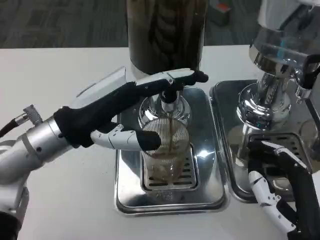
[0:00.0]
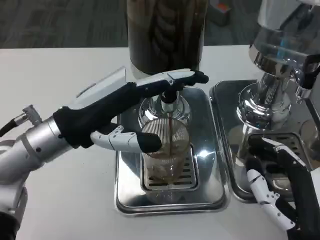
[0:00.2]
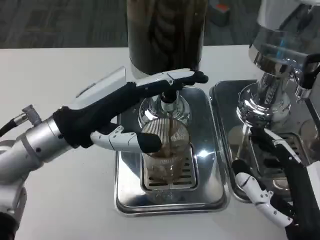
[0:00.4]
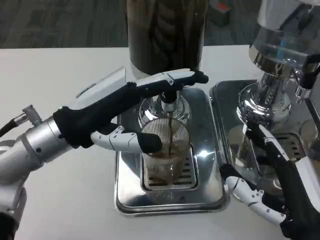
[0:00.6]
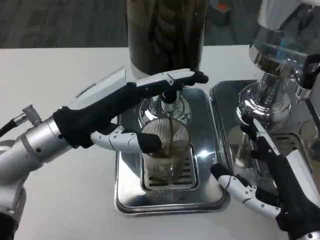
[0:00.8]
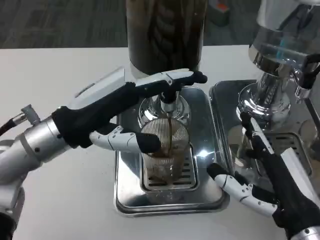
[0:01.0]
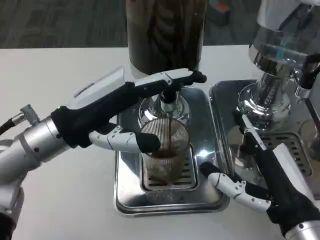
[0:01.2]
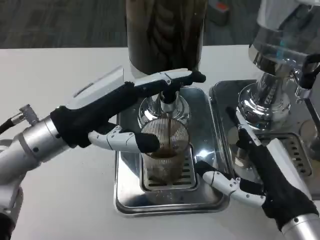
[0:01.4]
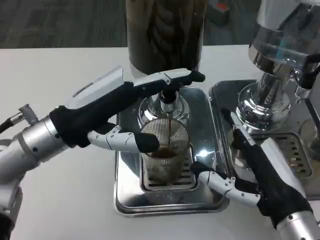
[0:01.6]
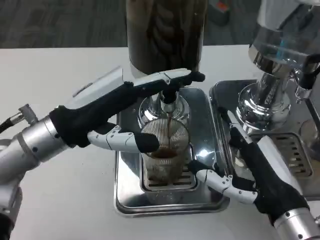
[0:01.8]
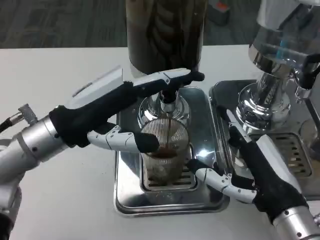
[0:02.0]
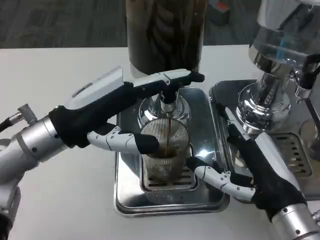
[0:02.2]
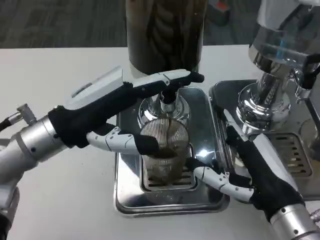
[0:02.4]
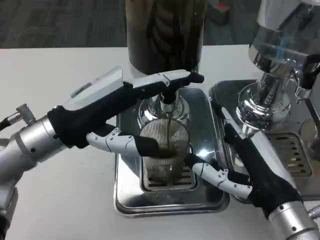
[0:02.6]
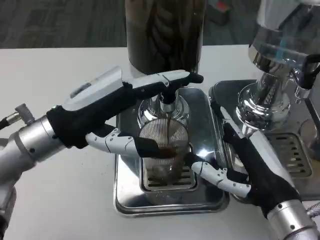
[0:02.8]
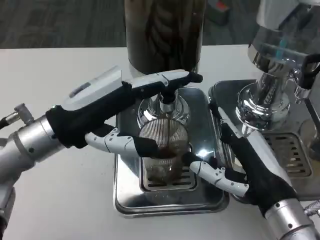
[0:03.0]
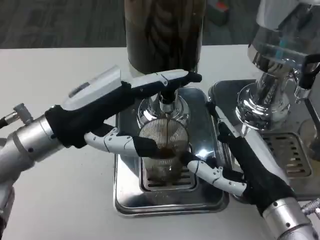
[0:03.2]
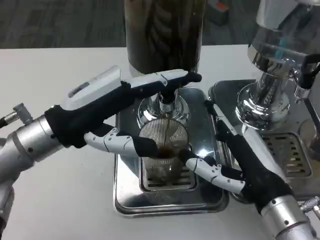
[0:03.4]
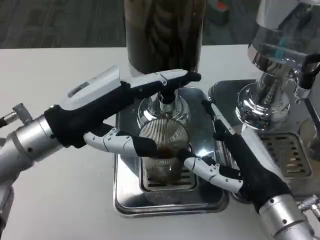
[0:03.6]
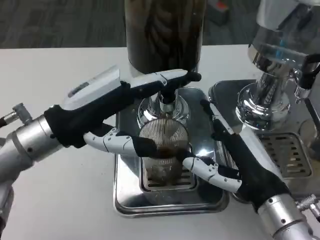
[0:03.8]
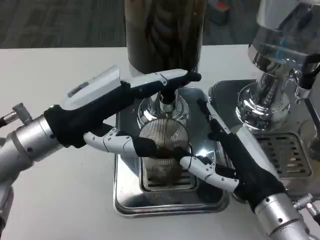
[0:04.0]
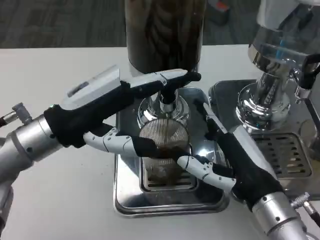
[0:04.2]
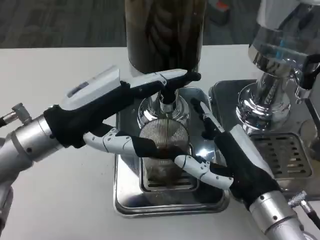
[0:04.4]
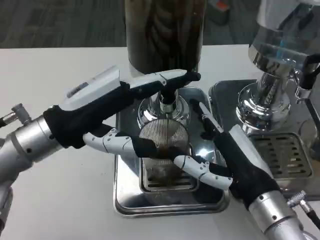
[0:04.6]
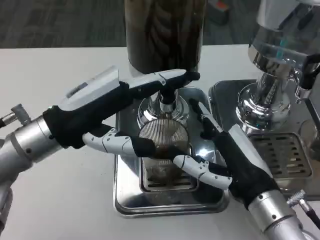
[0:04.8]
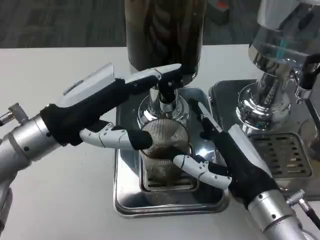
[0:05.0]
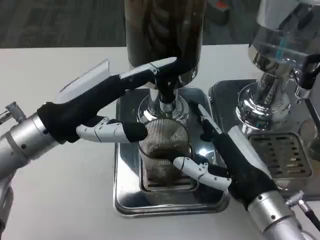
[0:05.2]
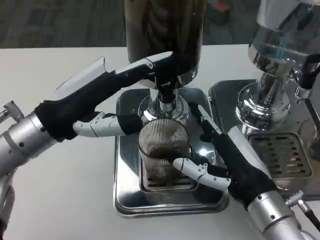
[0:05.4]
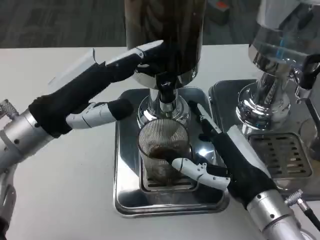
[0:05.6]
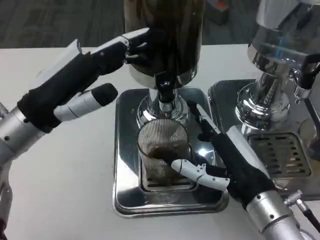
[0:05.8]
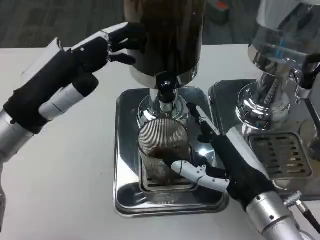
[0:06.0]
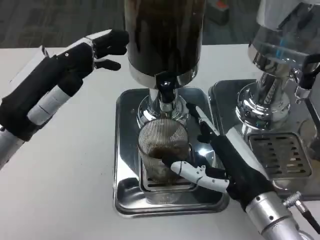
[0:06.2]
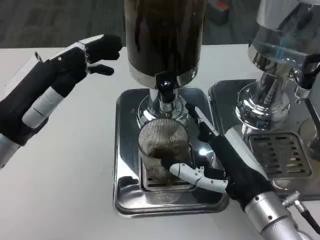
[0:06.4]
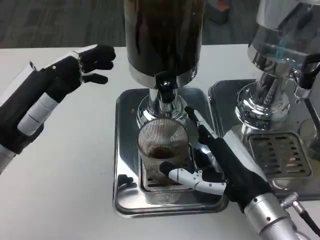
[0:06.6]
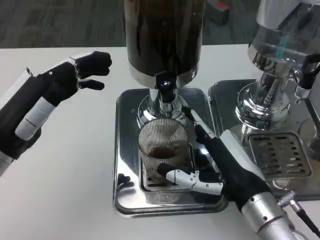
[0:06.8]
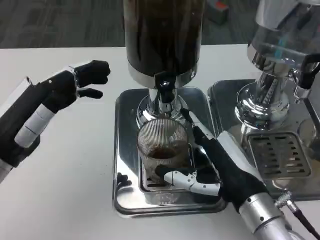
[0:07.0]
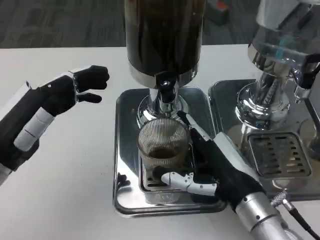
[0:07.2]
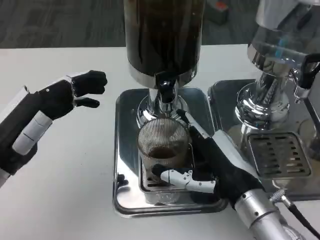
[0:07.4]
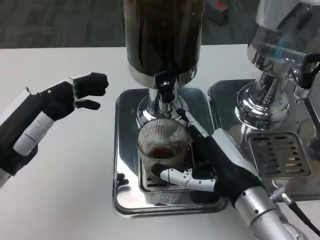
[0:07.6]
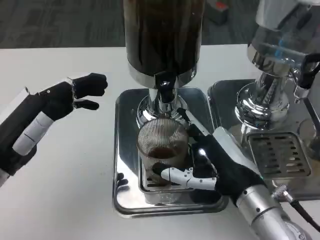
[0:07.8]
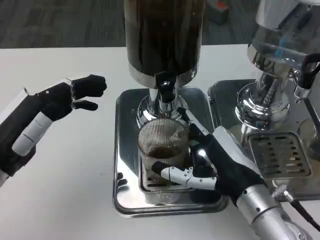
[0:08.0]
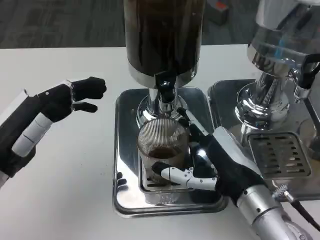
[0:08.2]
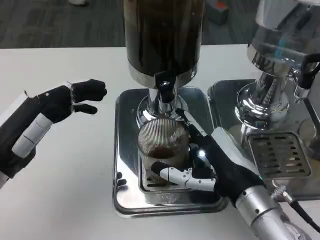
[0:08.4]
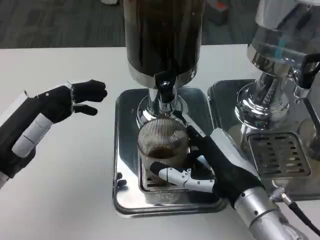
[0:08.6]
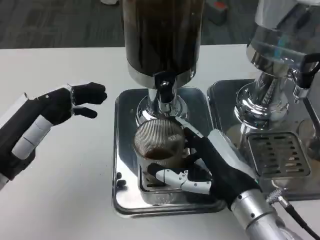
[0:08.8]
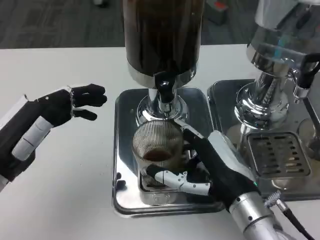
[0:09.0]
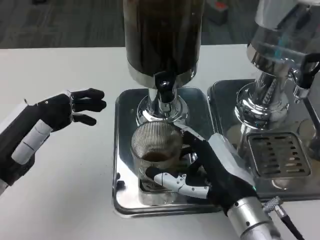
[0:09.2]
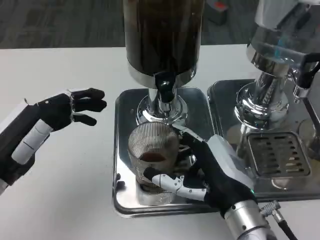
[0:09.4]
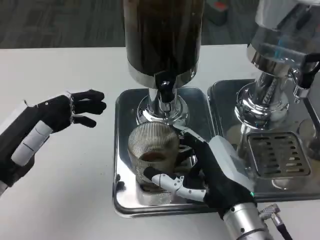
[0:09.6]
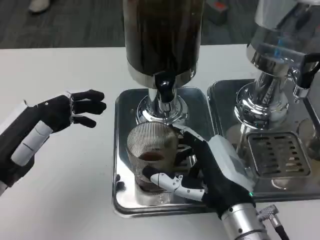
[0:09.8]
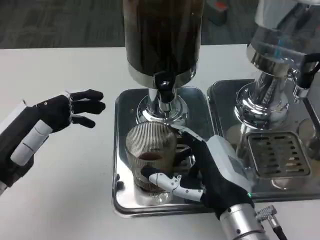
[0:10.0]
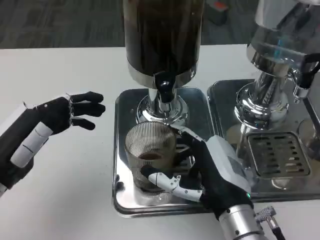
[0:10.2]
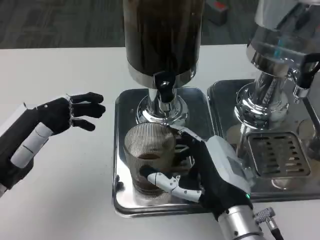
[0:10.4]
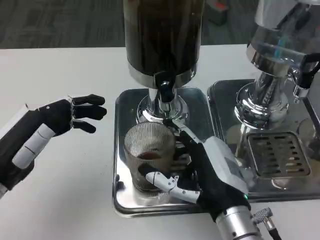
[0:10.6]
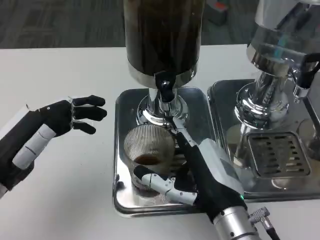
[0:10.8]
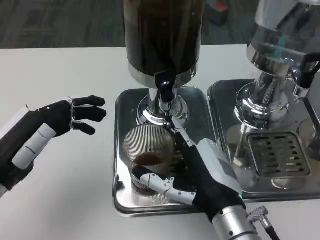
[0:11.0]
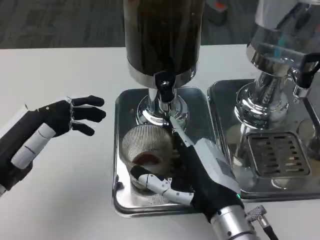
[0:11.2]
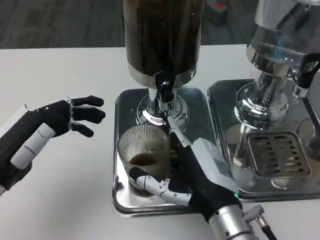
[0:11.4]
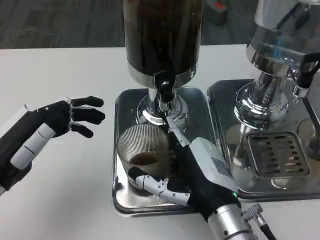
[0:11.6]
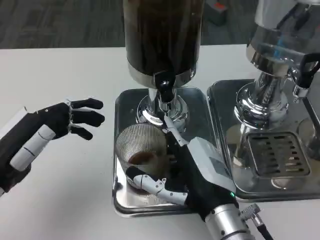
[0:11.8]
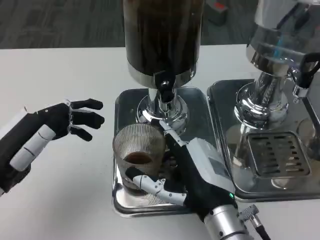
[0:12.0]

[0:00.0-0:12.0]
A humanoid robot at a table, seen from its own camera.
Task of the whole recording: Grasp the cup under the faucet to collect the drink, then remove the cup.
0.0 to 1.6 s: The right hand goes roughly 5 cm forward.
1.6 to 4.4 s: The hands stay close to where they were, moving slightly.
6.0 to 7.6 s: The left hand changes place by about 5 cm.
7.6 to 12.0 s: The hands stay close to where they were, moving slightly.

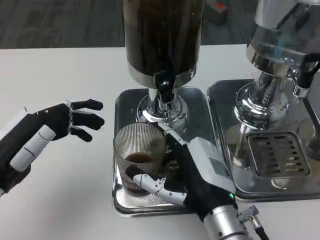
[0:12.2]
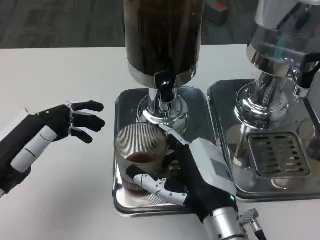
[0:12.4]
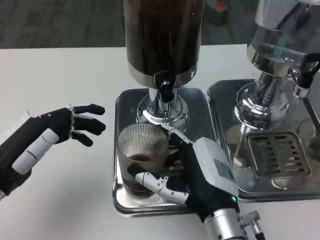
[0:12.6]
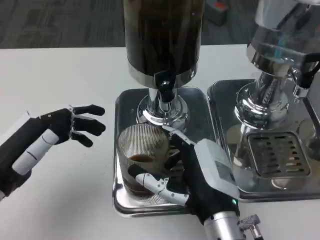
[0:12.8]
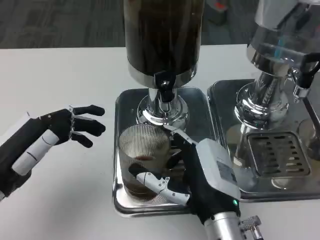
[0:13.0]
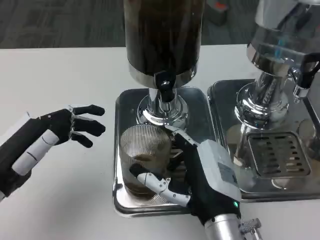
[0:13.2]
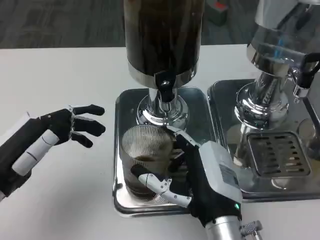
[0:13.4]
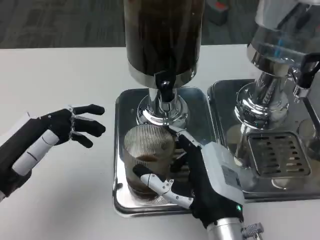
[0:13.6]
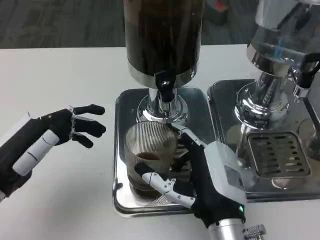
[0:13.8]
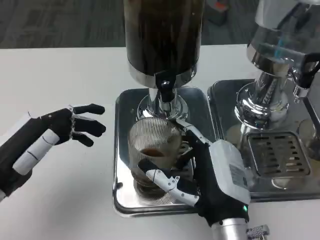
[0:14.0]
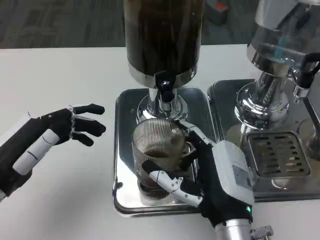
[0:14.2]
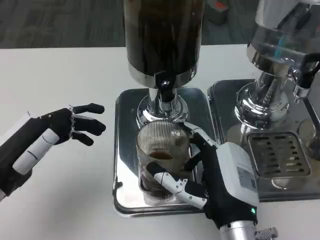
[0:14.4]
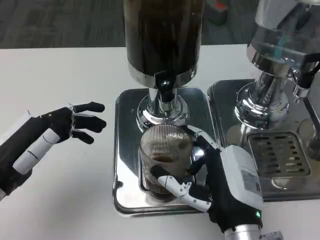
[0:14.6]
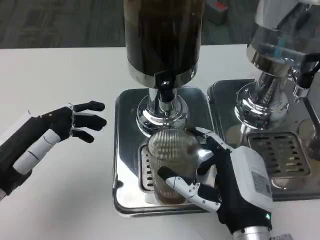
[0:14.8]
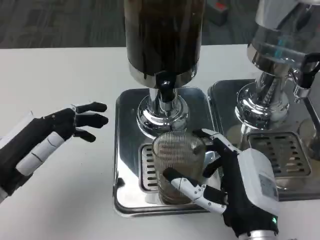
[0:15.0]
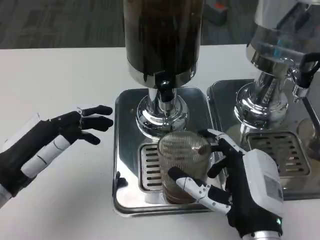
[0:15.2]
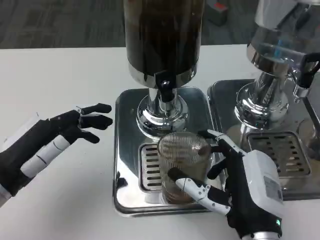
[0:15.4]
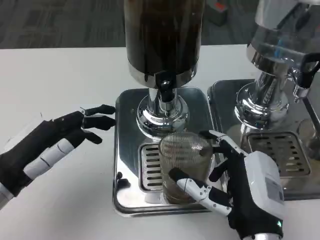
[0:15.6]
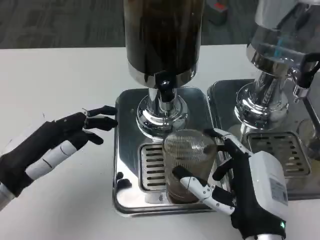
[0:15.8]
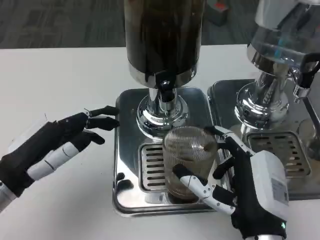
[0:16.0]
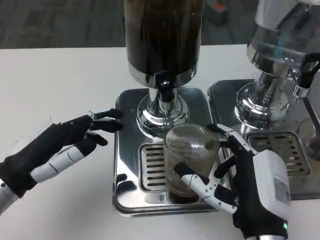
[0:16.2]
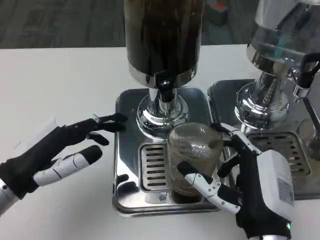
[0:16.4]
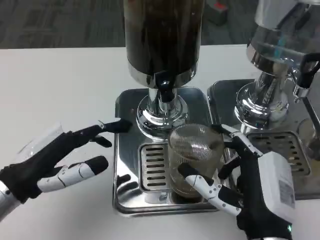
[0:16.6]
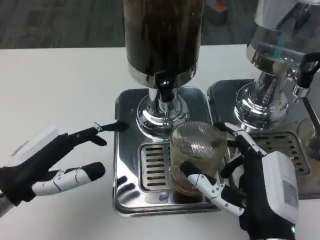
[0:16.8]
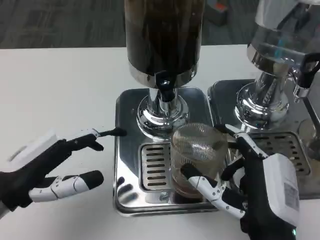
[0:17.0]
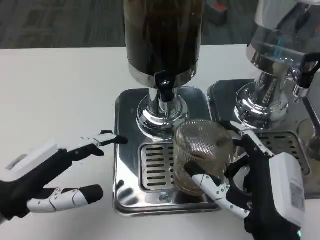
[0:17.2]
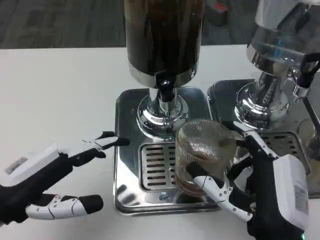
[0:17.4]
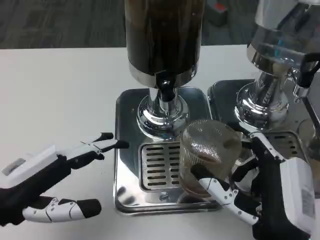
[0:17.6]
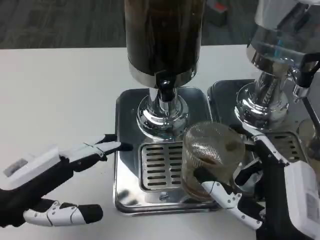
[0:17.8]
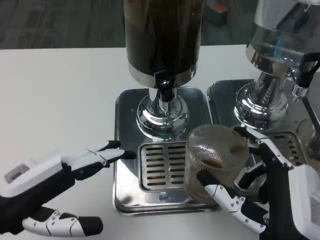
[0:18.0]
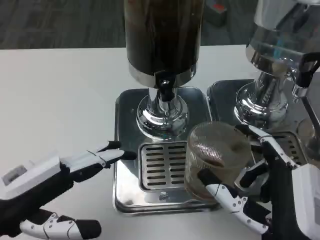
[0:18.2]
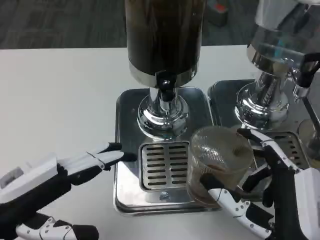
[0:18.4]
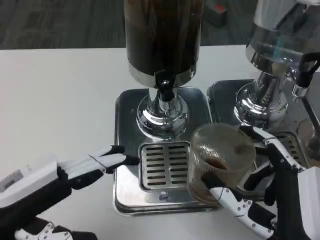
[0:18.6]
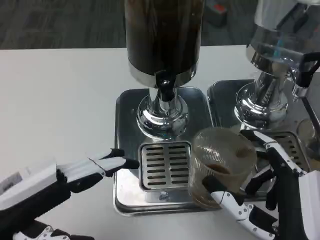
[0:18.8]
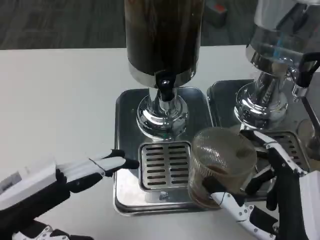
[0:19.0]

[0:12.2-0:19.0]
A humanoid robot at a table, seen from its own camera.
Task of the whole recording: Grasp the cup under the faucet to collect the drink, then remove the cup.
12.2 to 13.6 s: There are only small adjustments of the hands.
15.0 to 16.2 s: There are only small adjustments of the hands.

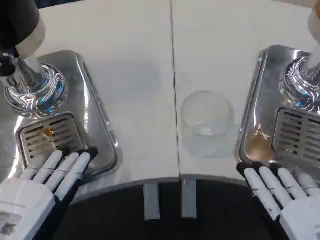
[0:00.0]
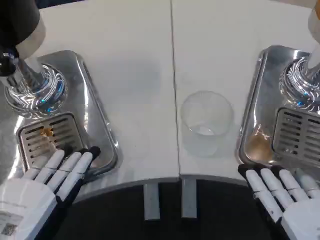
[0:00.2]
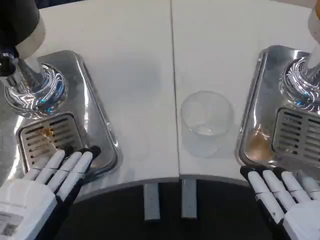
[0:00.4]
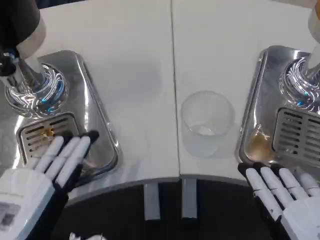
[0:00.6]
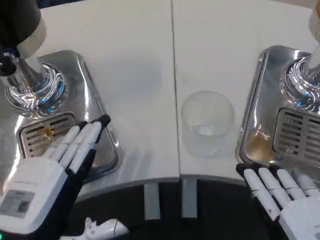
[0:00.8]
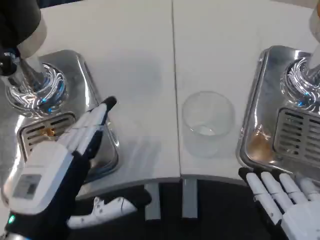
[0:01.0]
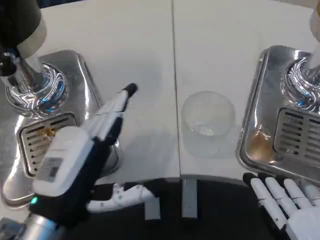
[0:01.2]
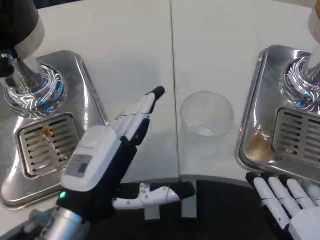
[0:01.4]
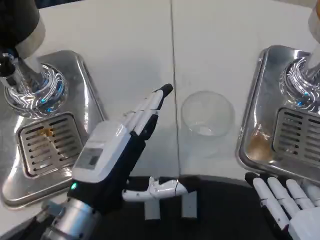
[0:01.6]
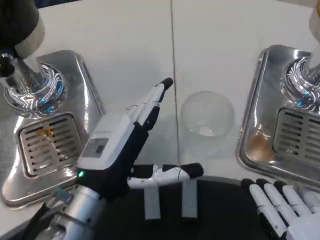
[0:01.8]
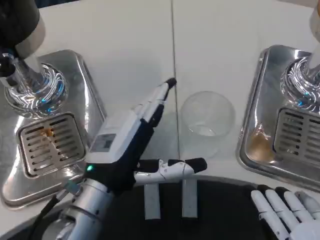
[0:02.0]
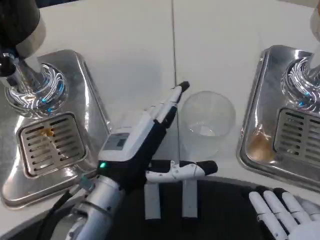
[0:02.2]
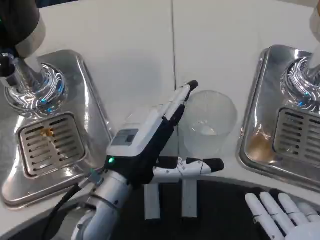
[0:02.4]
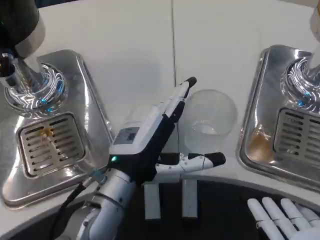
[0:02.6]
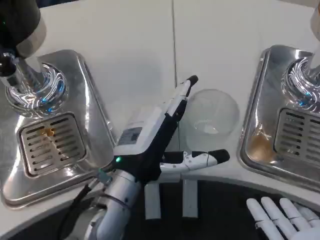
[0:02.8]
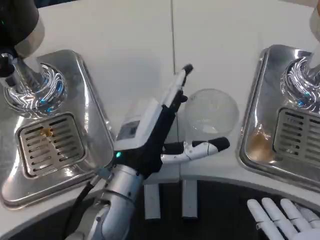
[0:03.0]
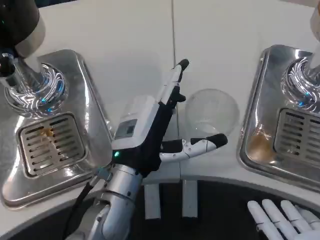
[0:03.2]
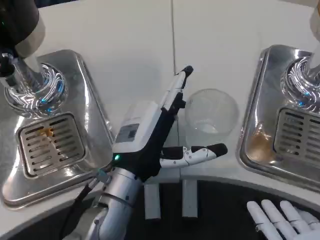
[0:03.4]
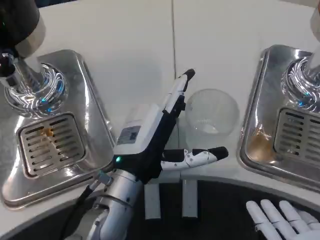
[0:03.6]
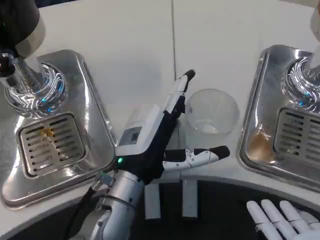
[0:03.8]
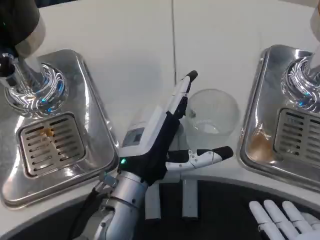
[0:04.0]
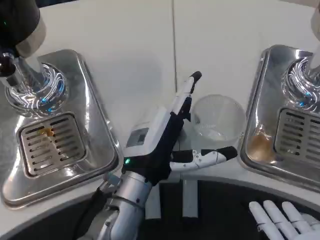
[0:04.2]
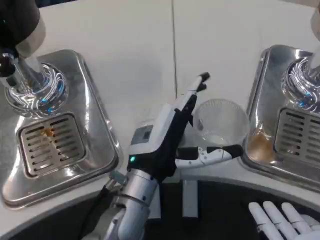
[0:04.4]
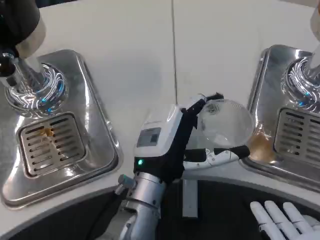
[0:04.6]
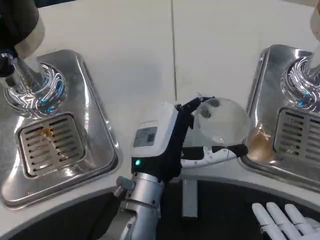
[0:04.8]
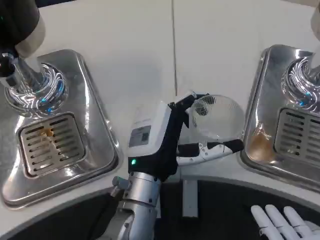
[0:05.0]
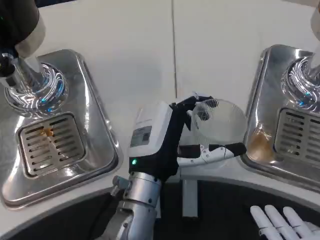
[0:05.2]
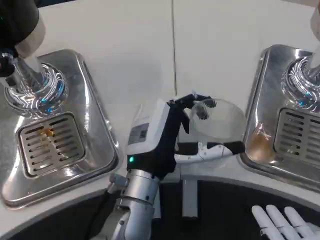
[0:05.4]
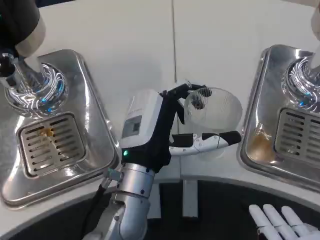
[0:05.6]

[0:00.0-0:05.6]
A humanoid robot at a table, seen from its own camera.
Task of the whole recording: Grasp the cup under the faucet to collect the drink, then remove the cup.
0.0 to 1.4 s: The left hand moves forward and to the right, roughly 10 cm.
1.4 to 2.8 s: The left hand goes approximately 10 cm forward and to the right.
2.8 to 5.6 s: The hands make only small movements.
